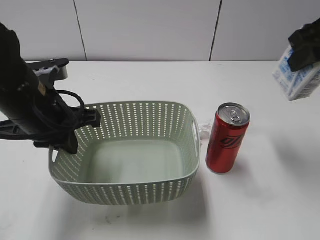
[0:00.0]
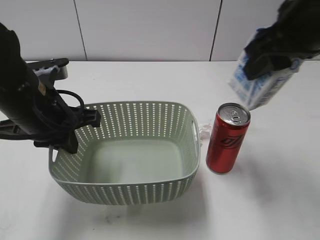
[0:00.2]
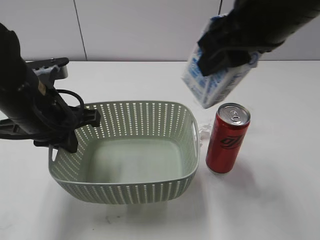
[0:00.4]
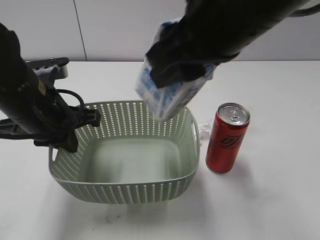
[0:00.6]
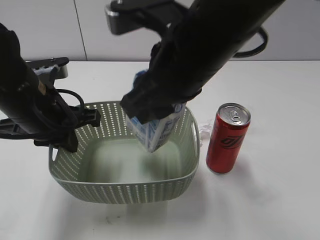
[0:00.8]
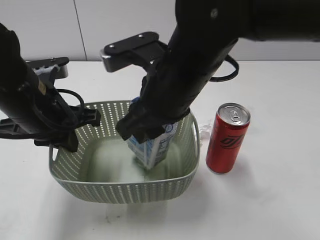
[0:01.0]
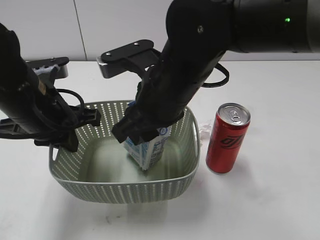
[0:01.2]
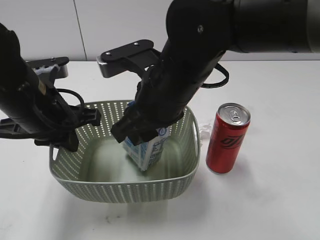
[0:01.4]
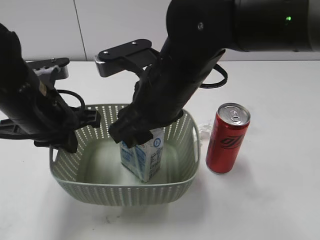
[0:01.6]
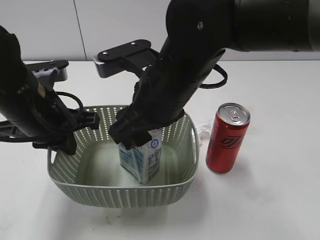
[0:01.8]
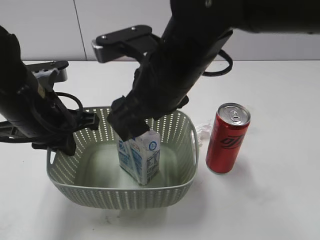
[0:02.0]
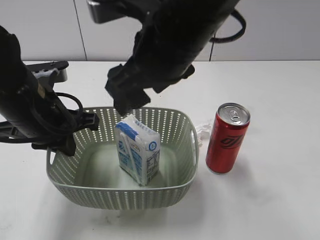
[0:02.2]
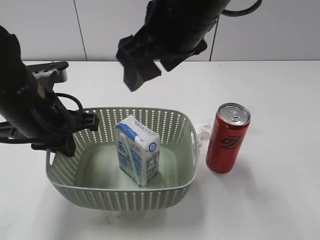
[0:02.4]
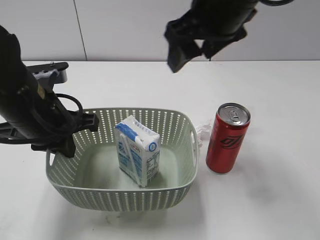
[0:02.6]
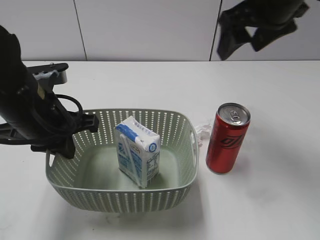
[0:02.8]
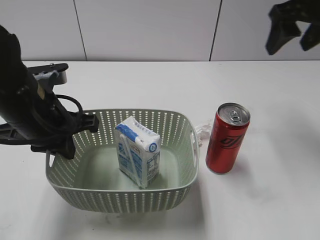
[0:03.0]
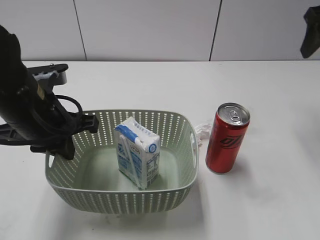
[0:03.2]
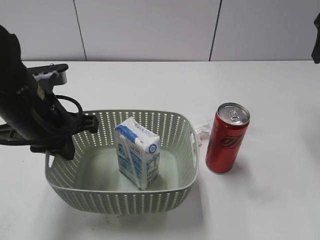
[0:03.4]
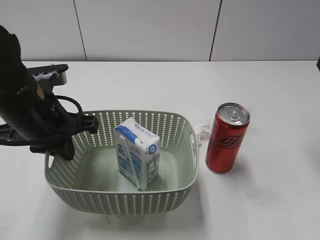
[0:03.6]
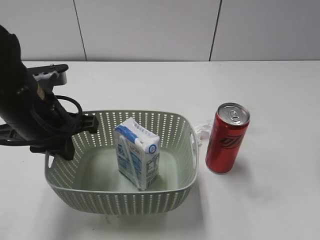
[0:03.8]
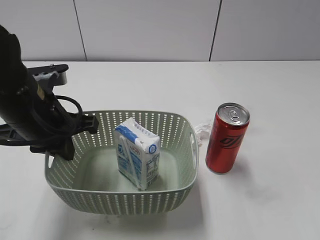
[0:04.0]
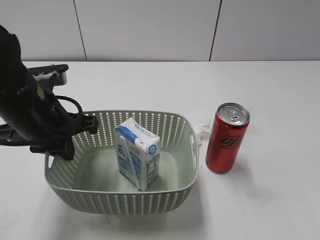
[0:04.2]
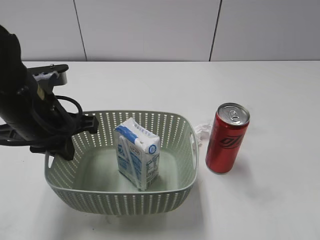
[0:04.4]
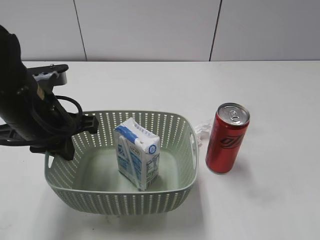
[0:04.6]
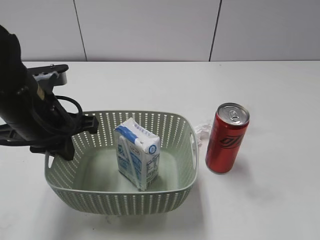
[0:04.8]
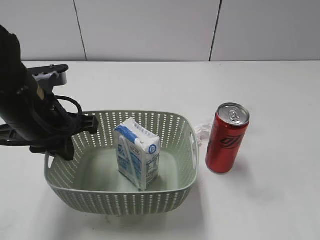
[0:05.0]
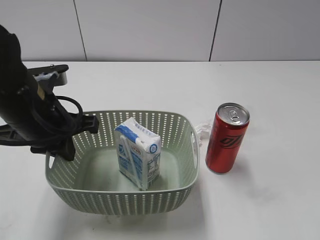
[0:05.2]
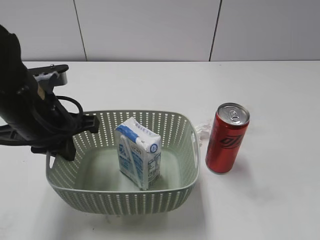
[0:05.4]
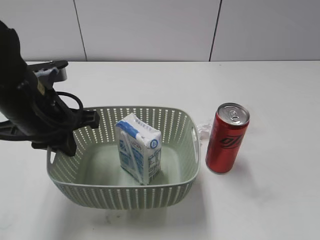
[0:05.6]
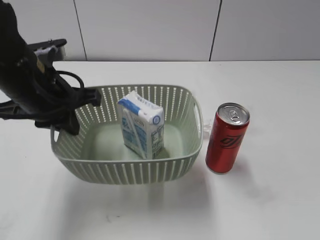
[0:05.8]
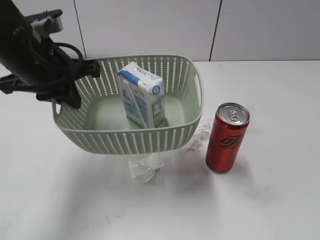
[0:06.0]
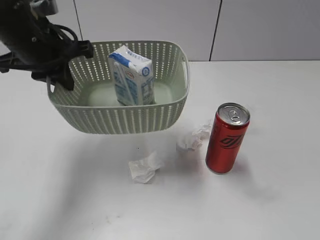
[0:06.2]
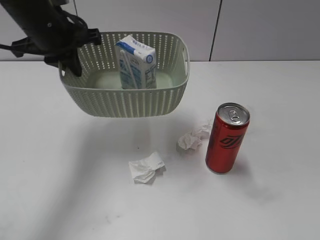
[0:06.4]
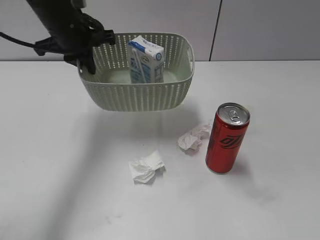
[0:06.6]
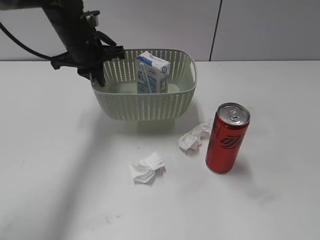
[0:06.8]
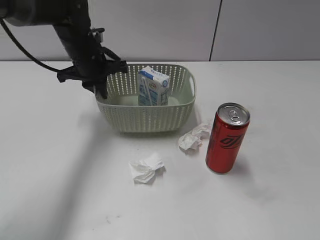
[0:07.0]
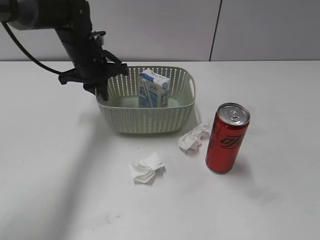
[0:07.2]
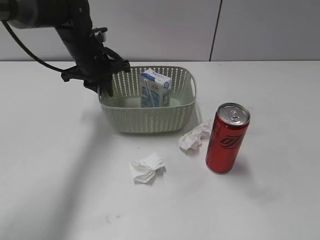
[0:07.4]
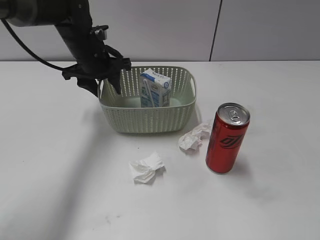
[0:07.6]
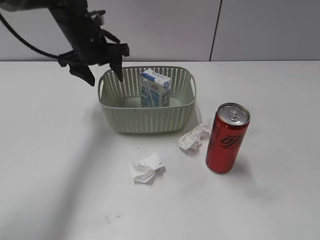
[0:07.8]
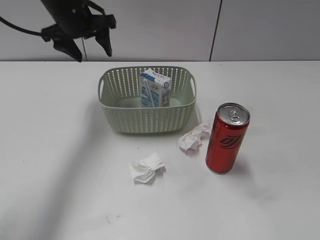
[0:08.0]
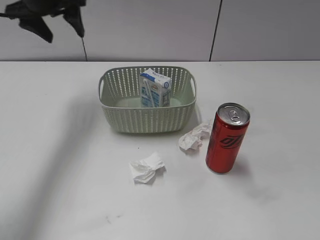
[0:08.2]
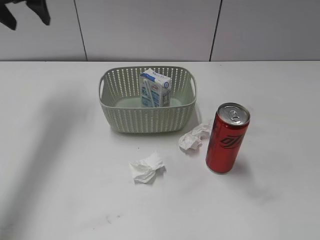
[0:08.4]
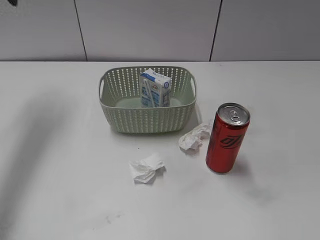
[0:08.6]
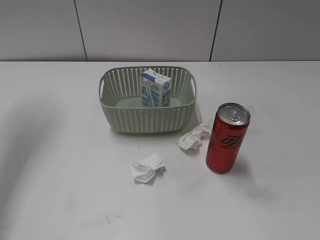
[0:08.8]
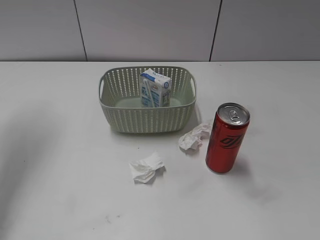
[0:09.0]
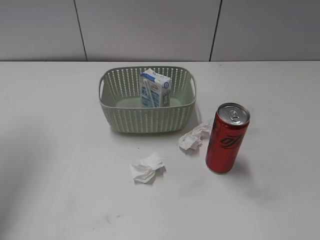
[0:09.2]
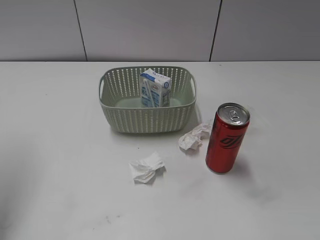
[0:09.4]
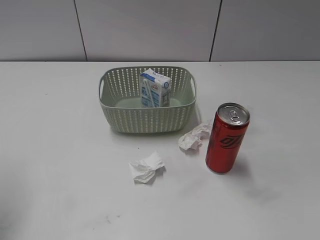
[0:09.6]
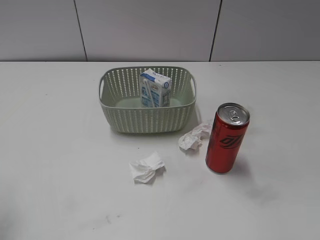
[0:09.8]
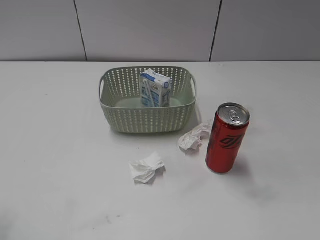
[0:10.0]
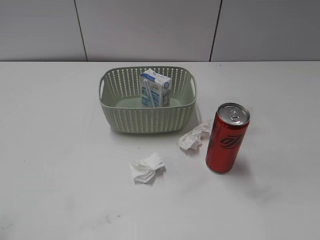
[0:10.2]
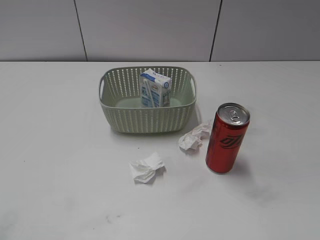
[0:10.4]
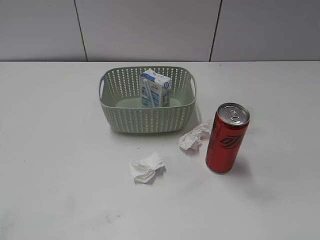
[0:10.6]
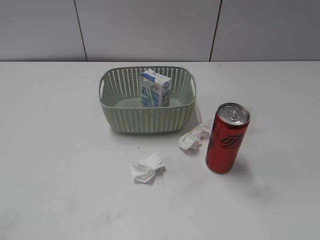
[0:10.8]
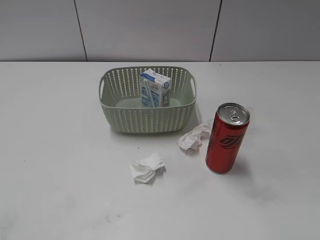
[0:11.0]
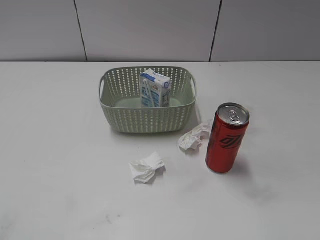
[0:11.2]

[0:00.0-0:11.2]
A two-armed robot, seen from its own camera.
Step, 0:00.0 to 0:02.2: Place the milk in the basket with right gripper.
Step, 0:02.4 to 0:07.8: Place the basket on the table with left gripper.
0:00.0 to 0:01.6: The right gripper is displaced to the left and downward by roughly 25 cm.
0:01.6 to 0:03.2: The right gripper shifts approximately 30 cm to the right and forward, and opens up.
0:03.2 to 0:04.8: The right gripper travels backward by about 30 cm.
0:04.8 to 0:06.4: The right gripper travels backward by about 5 cm. Meanwhile the left gripper is displaced forward and upward by roughly 15 cm.
0:06.4 to 0:08.0: The left gripper goes roughly 10 cm forward, moves some 10 cm downward and comes back, and opens its fingers.
0:08.0 to 0:09.6: The left gripper heads backward and to the left, covering approximately 30 cm.
0:09.6 to 0:11.2: The left gripper moves backward, some 20 cm.

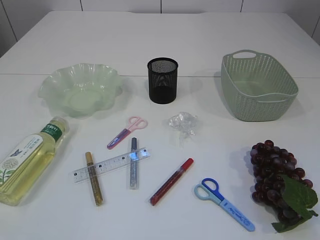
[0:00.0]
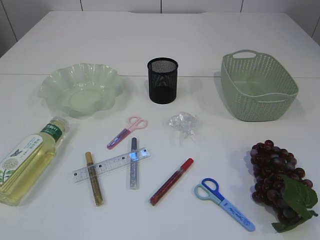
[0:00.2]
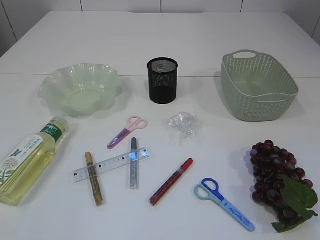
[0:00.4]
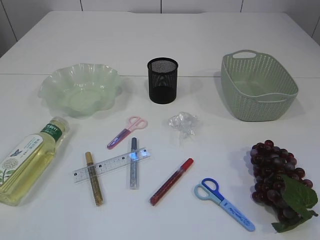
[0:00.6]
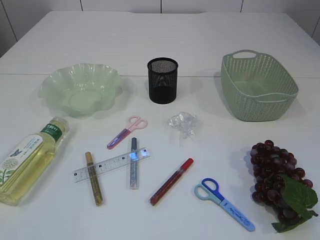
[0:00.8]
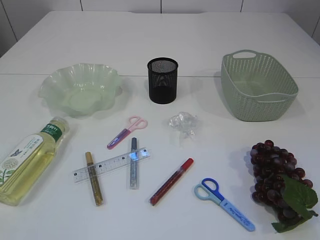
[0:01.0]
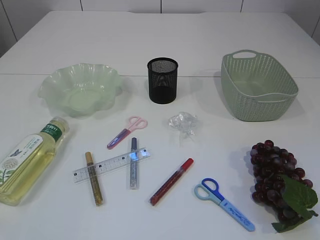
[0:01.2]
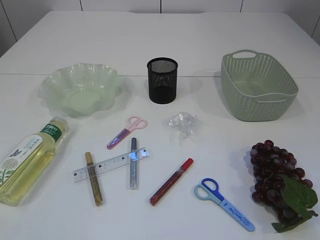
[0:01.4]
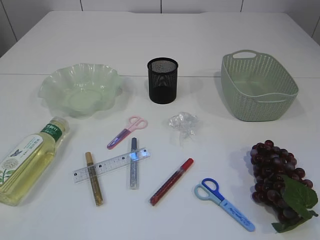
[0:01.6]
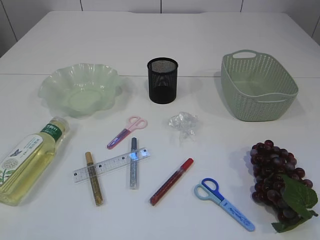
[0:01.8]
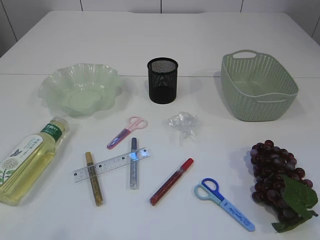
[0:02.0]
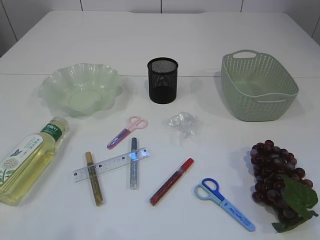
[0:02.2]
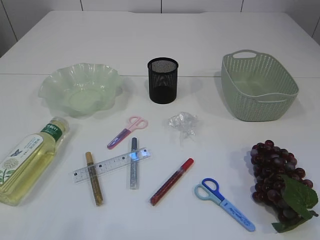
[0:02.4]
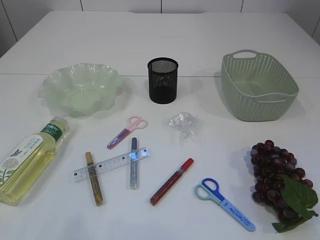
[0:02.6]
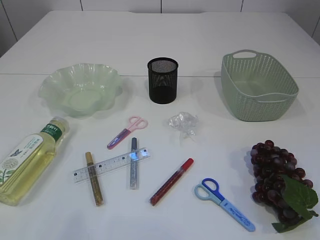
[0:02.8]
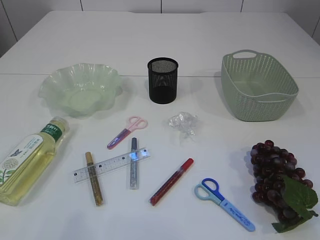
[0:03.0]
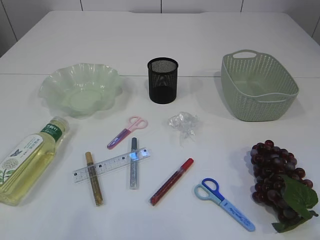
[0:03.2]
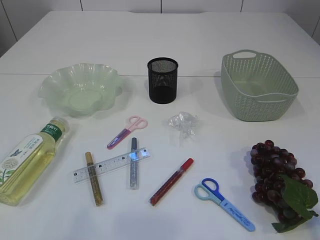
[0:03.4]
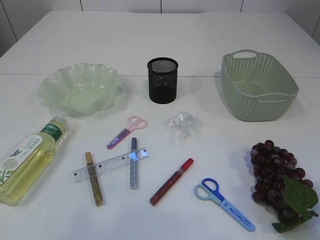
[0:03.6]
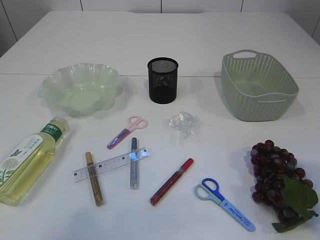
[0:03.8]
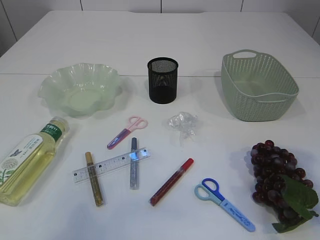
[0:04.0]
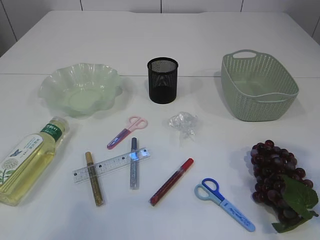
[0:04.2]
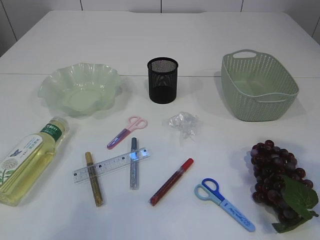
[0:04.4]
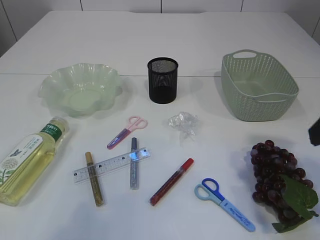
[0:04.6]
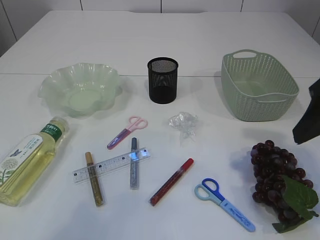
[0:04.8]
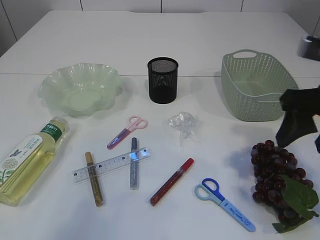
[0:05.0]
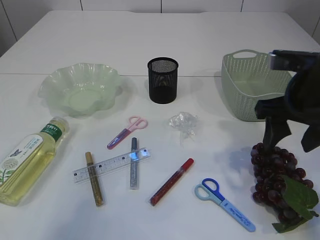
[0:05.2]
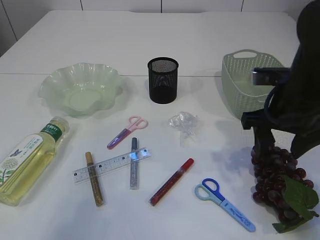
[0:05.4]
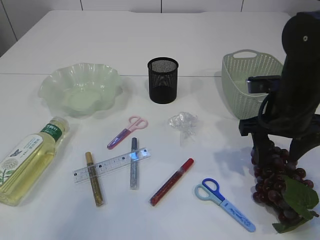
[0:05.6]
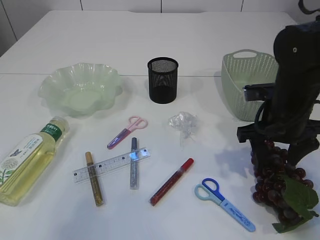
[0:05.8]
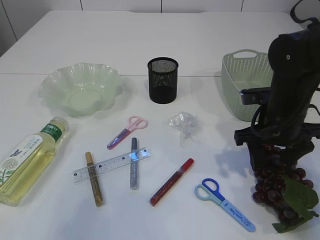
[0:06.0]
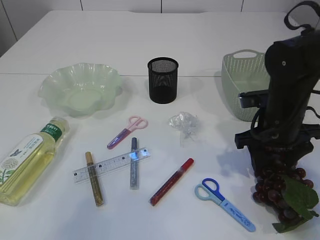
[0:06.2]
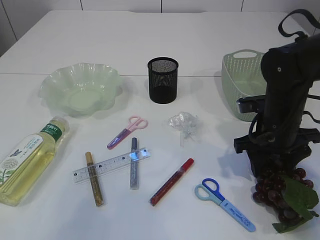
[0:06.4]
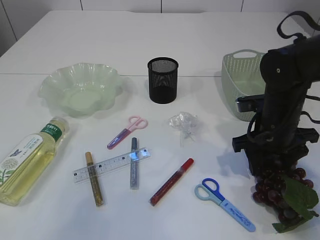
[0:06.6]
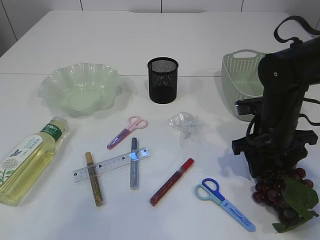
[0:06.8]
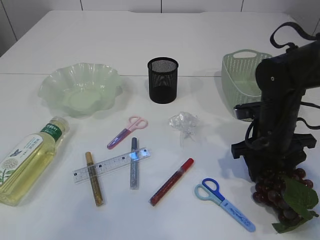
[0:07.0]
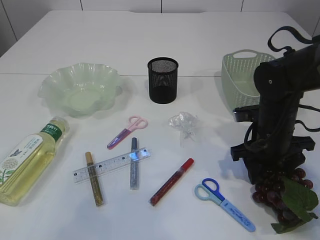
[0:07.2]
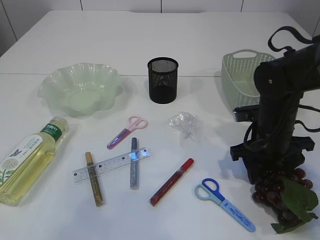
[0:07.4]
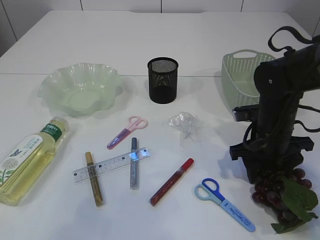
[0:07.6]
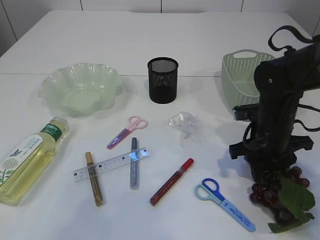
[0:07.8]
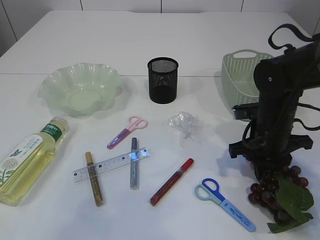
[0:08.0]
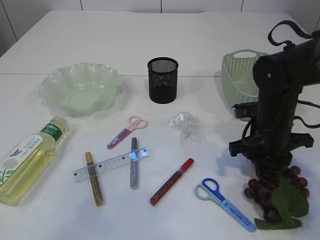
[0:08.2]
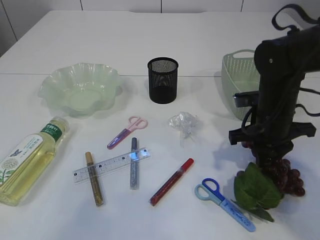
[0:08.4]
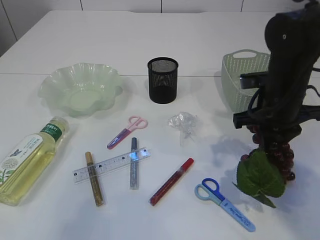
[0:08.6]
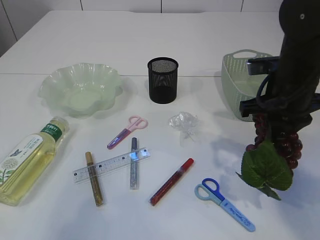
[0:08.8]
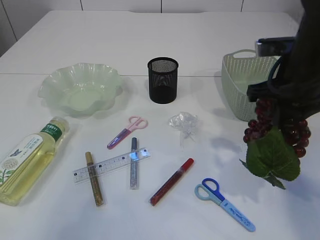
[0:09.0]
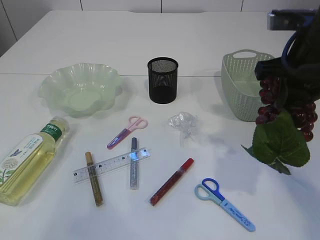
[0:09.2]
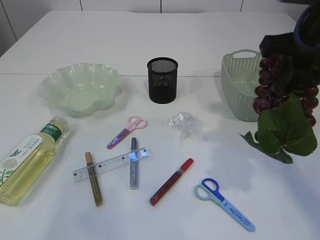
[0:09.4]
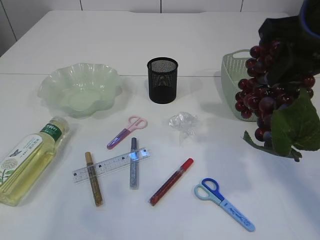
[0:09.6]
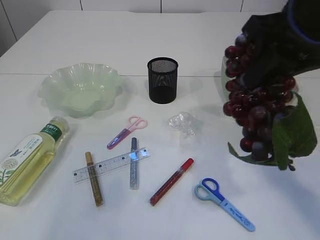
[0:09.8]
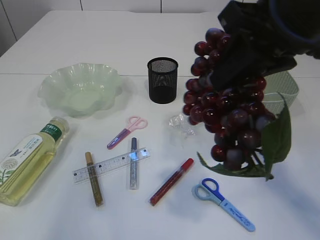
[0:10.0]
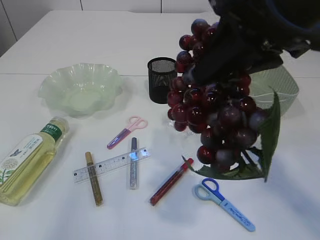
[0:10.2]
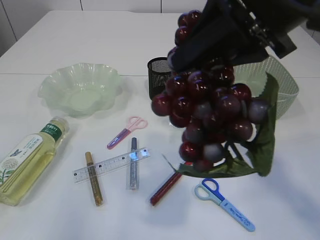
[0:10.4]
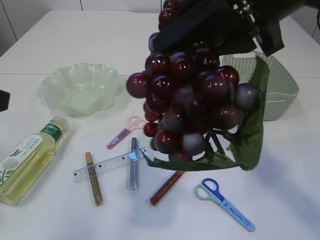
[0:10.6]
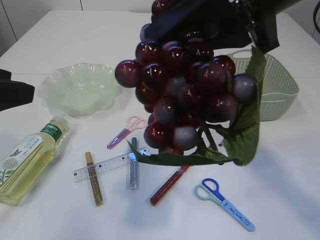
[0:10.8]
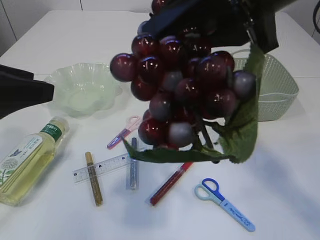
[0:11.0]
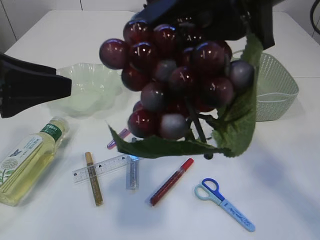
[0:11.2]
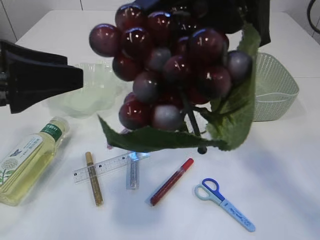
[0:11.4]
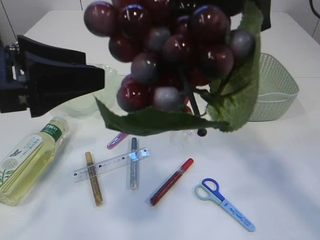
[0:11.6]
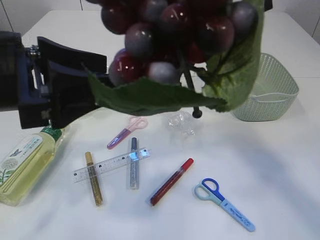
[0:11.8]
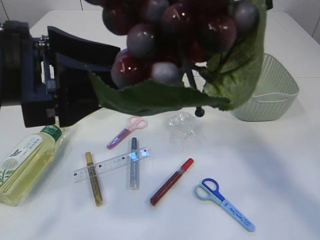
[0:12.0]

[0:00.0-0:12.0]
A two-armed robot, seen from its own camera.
Step, 0:00.0 to 0:09.0: Pick up the grapes.
0:03.0 to 0:04.4: The right gripper heads forward, covering about 20 cm, and opens.
0:04.4 to 0:06.0: The right gripper heads forward and downward, covering roughly 20 cm.
0:06.0 to 0:07.6: The grippers move only a little.
0:07.6 to 0:09.0: The right gripper travels upward by some 15 cm, and closes.
0:09.0 to 0:10.4: The left gripper travels forward by about 5 cm; the right gripper is displaced upward, backward and to the left by roughly 20 cm.
0:10.4 to 0:12.0: The left gripper goes roughly 15 cm to the right and forward. Meanwhile the right gripper heads upward, covering about 5 cm.
